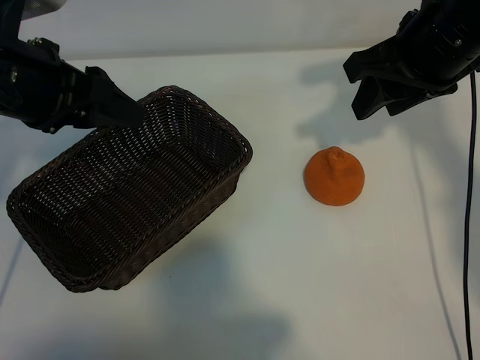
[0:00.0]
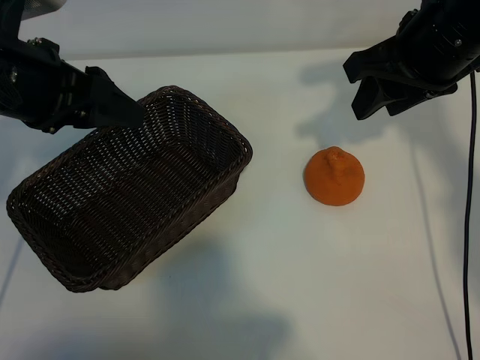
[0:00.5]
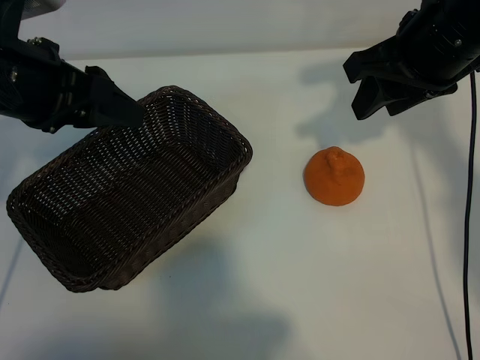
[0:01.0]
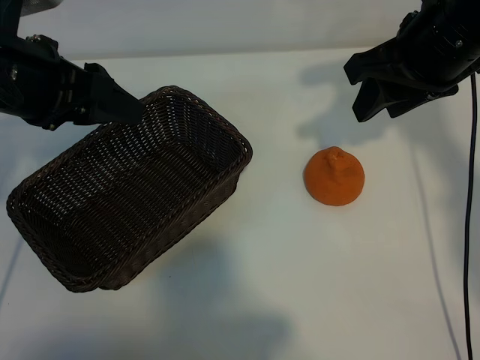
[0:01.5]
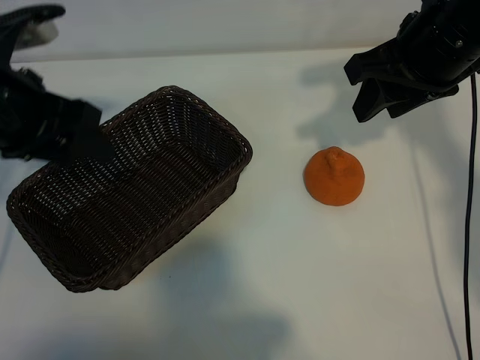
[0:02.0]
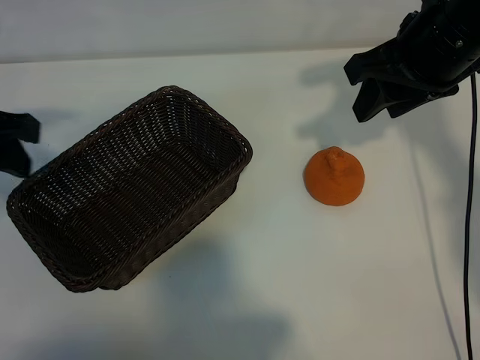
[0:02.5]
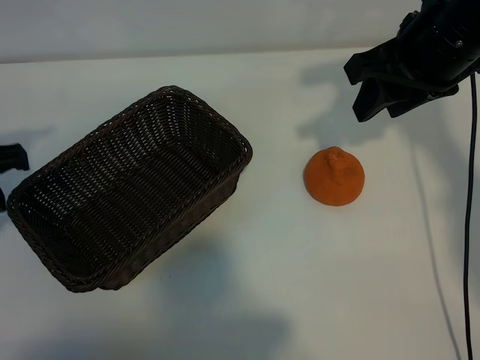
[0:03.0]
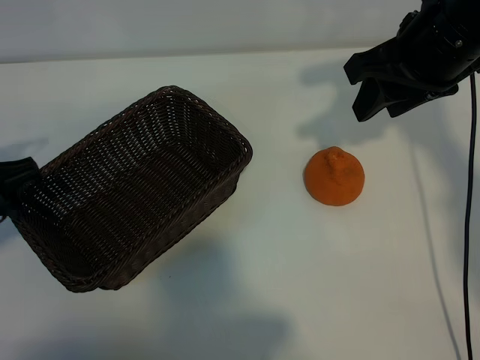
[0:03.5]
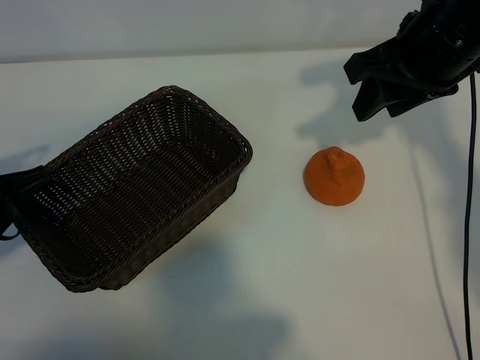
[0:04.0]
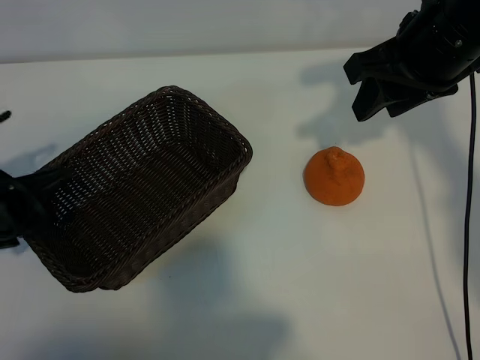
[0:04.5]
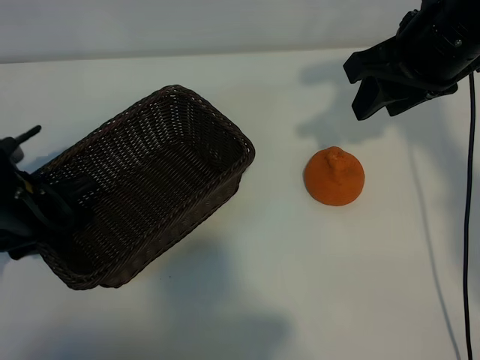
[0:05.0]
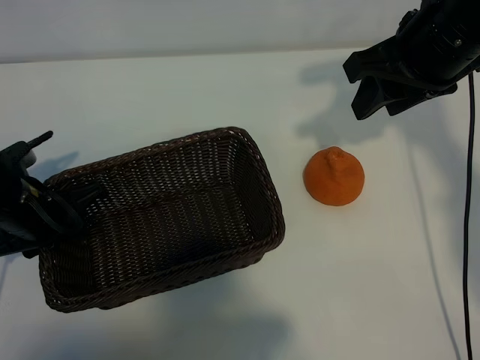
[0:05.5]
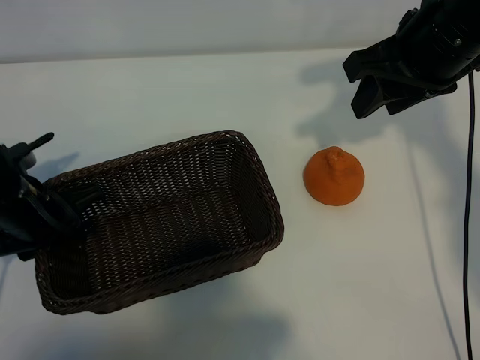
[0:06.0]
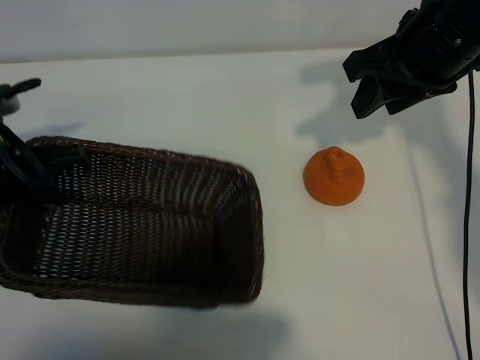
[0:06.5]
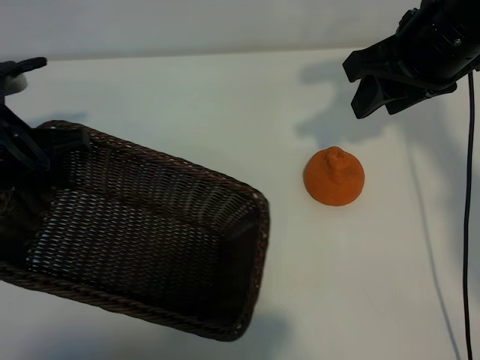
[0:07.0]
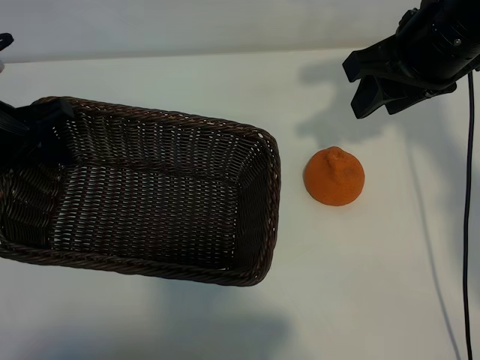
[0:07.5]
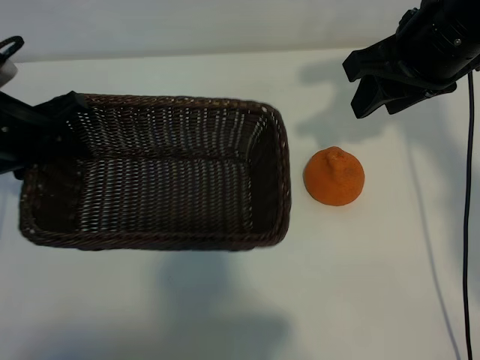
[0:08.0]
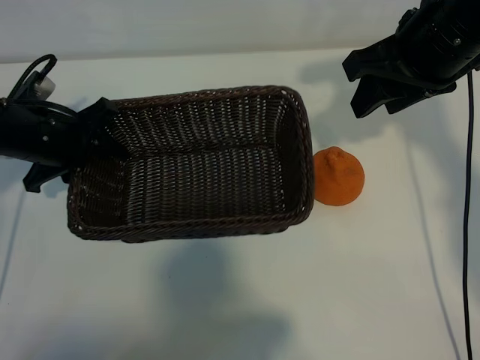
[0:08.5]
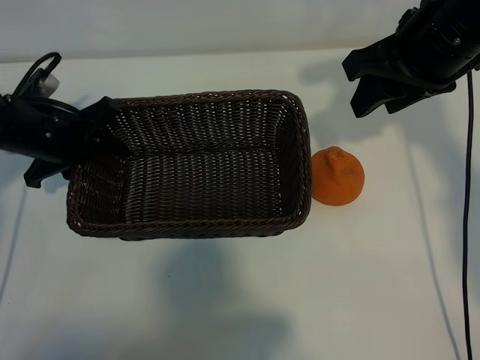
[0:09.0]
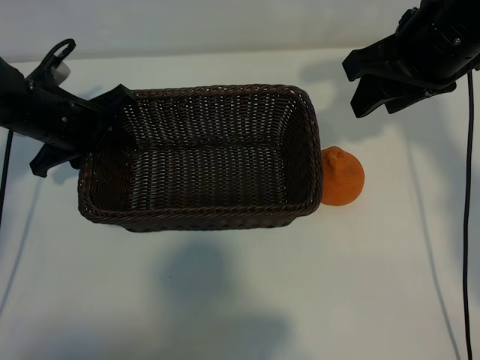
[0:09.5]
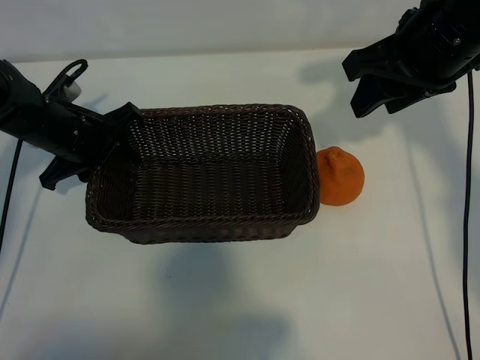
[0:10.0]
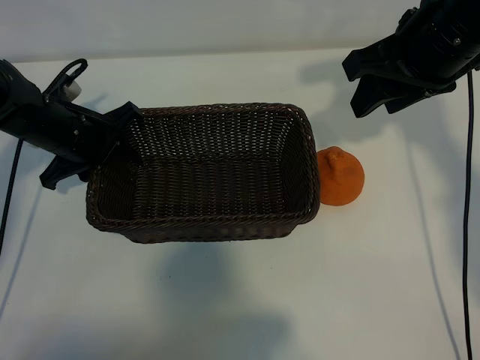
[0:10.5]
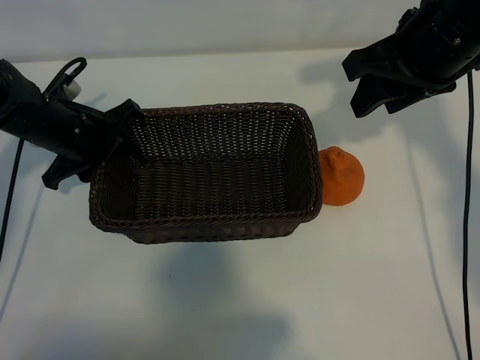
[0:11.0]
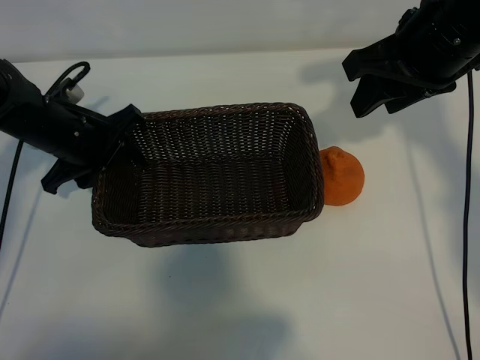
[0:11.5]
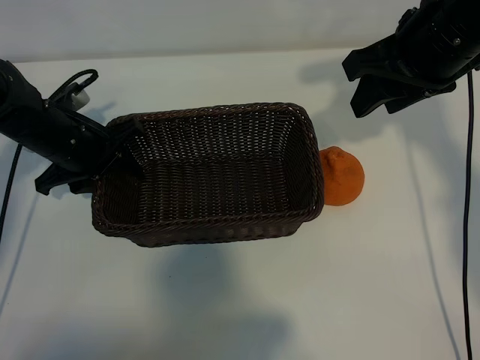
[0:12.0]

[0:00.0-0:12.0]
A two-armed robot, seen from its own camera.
Task of the whole recording: pick up the orange and put it into the basket.
Step, 0:01.0 to 0:05.5: Grasp the basket with left gripper.
Step, 0:06.0 to 0:11.5: Place the basket in the center of view with left gripper.

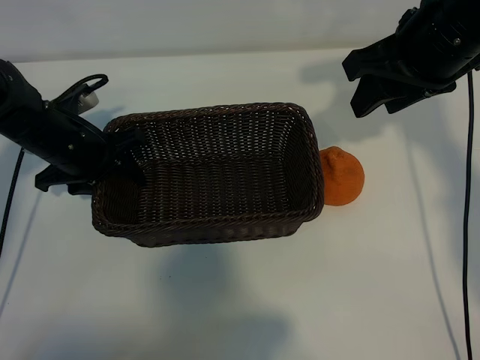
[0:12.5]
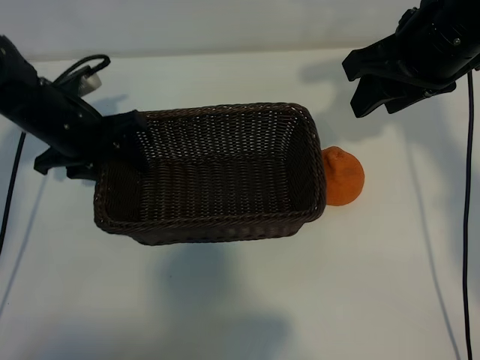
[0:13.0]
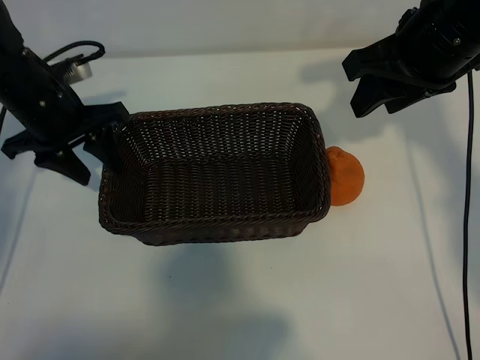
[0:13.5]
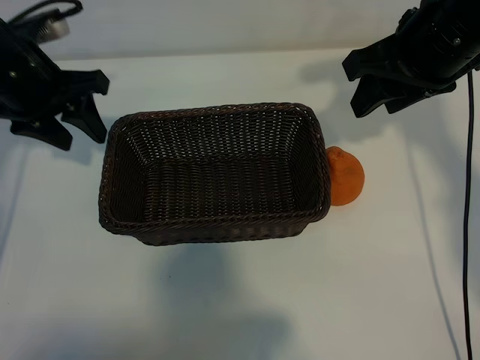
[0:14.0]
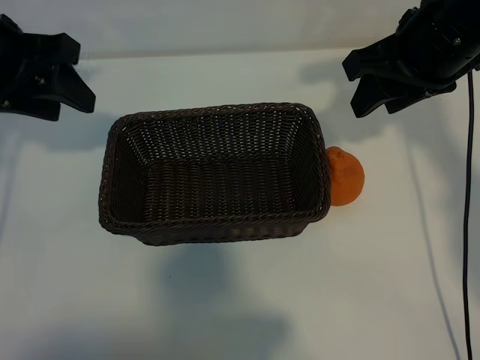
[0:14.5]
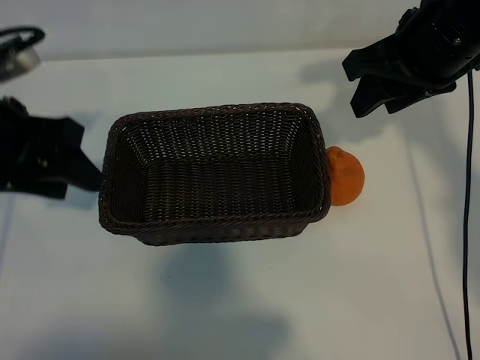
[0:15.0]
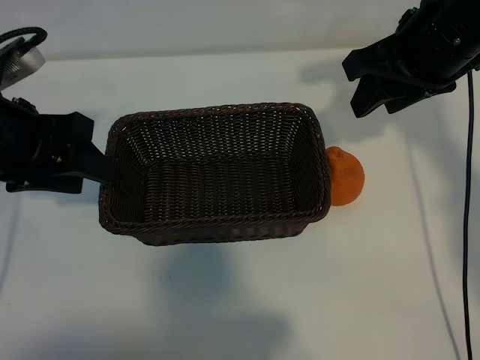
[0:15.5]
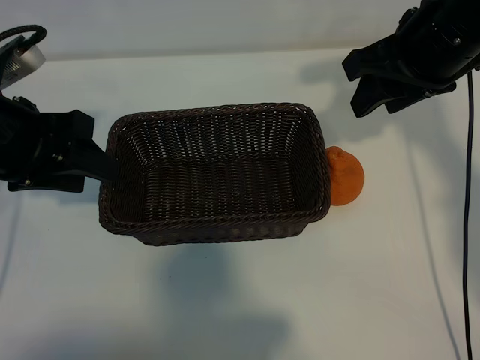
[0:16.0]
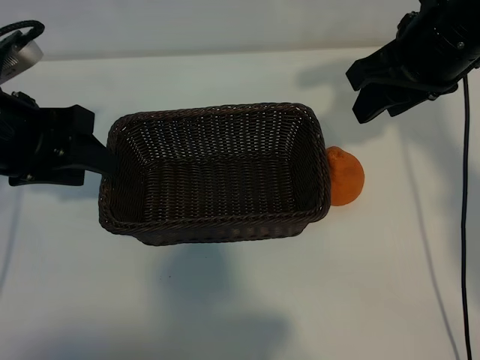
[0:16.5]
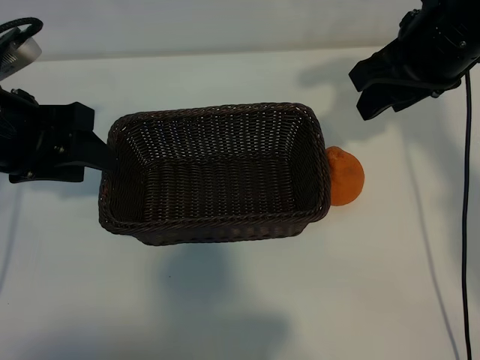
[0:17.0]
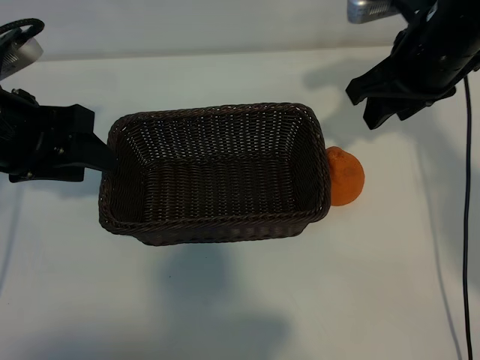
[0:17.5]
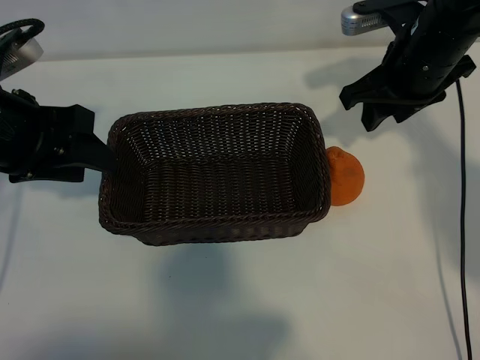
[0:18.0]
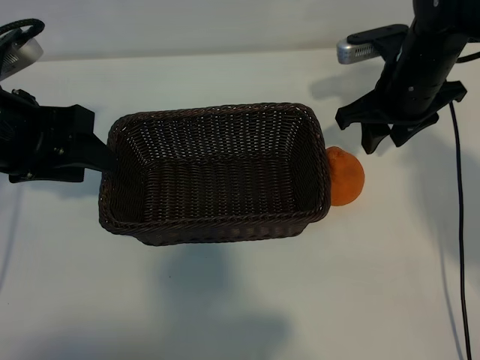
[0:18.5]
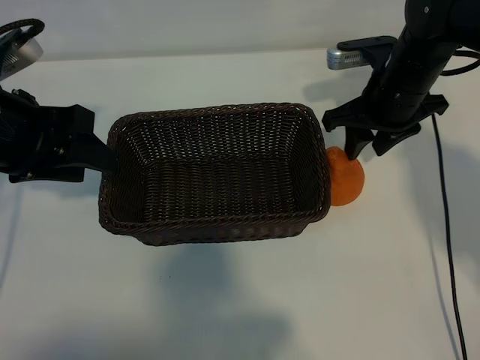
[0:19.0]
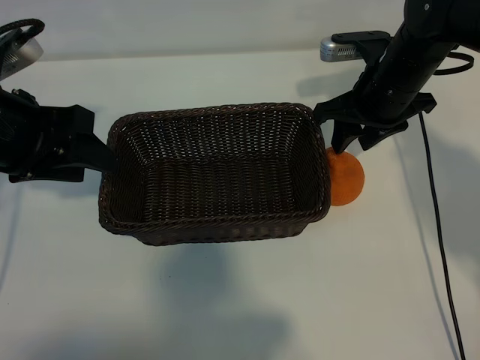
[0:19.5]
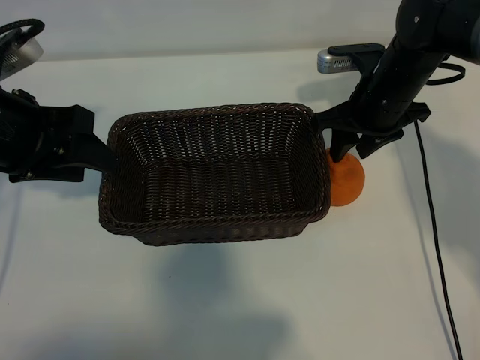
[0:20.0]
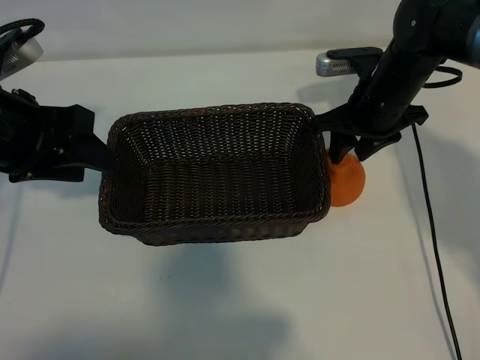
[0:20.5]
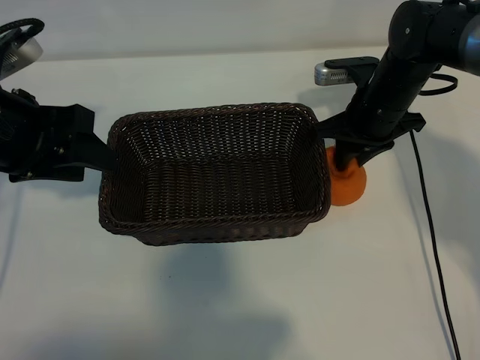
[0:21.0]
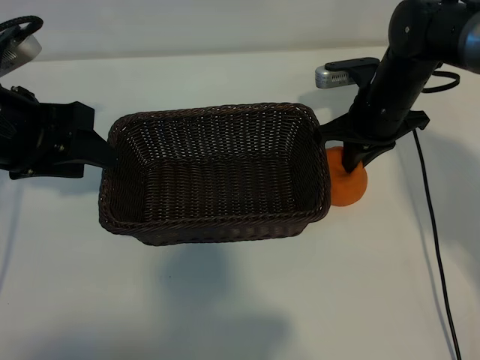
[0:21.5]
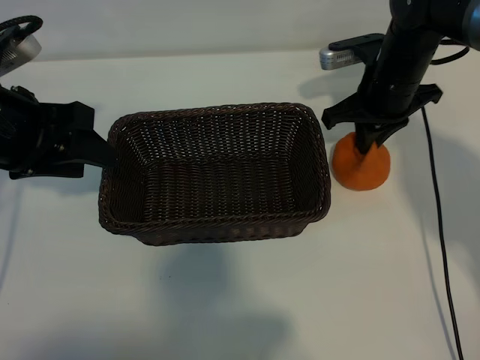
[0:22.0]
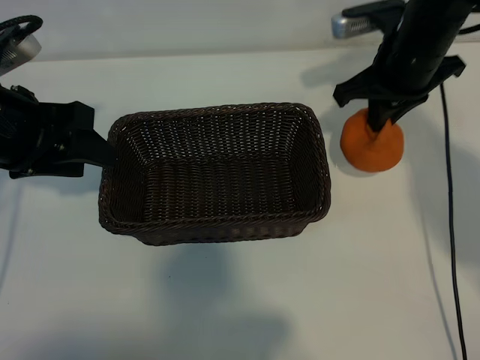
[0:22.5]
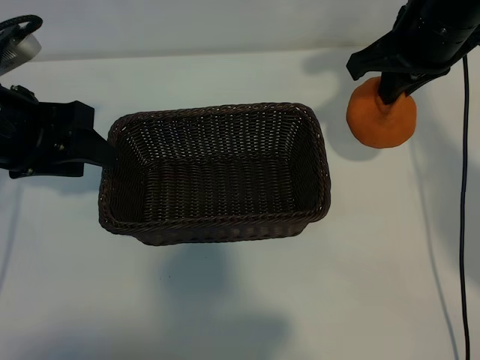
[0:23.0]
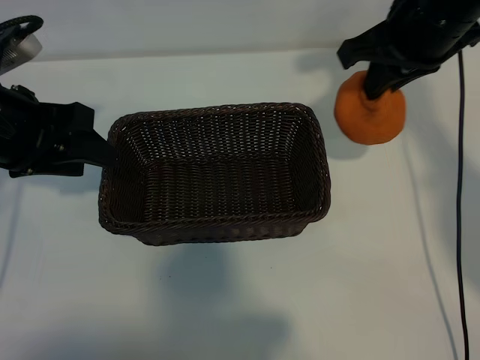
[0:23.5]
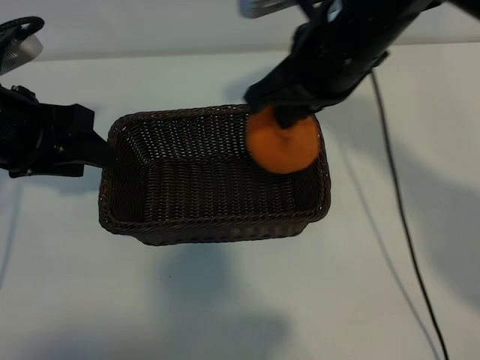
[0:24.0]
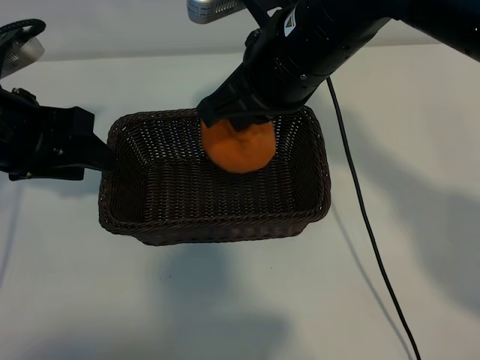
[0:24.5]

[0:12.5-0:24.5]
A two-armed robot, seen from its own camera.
Task of the whole recording: pick up the orange and put it into the basket.
Step, 0:12.5 to 0:21.0: Grasp the orange with right gripper.

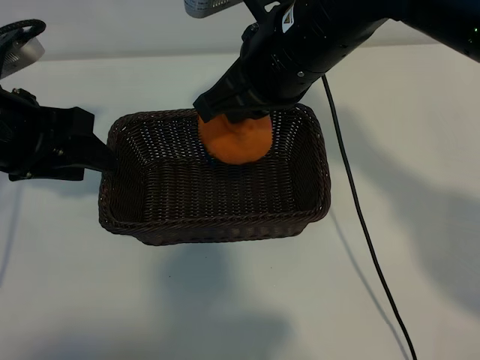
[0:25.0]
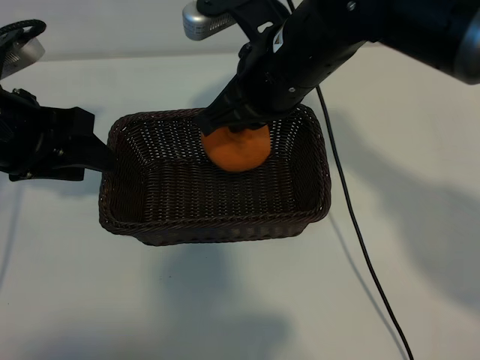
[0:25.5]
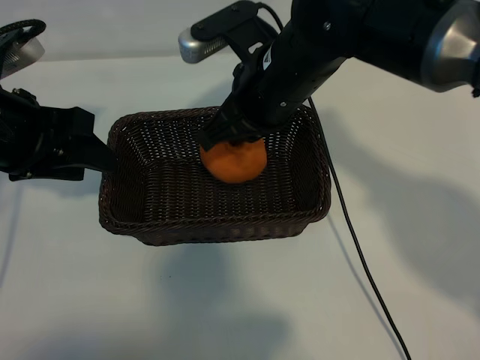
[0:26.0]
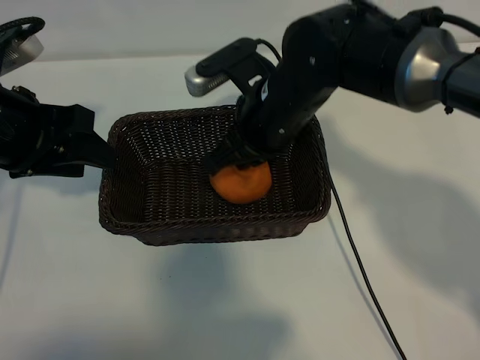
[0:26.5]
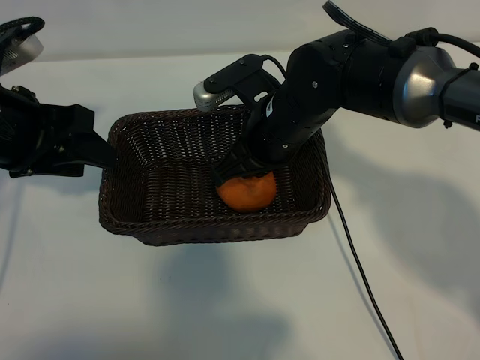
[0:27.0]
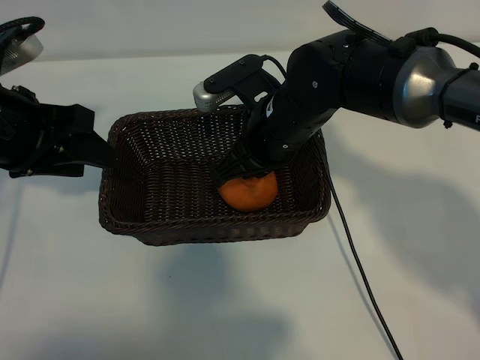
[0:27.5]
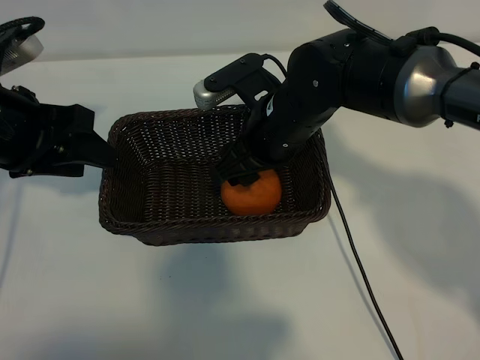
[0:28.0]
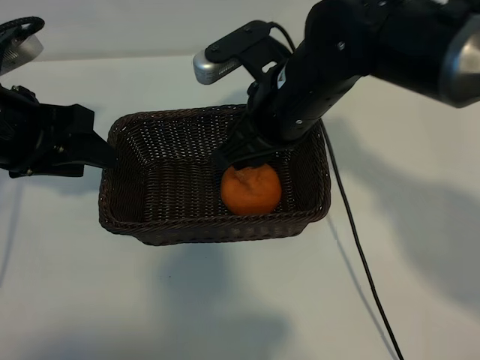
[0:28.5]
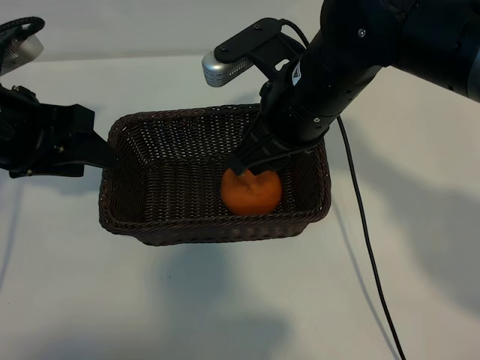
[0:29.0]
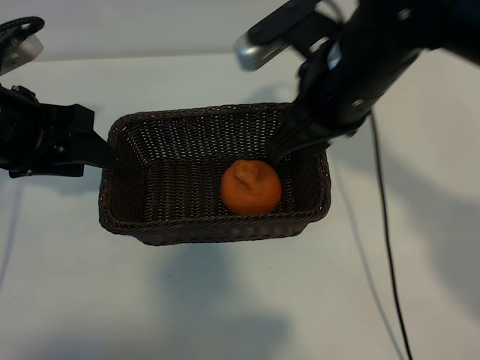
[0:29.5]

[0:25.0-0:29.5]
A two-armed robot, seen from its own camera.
Task of the whole recording: pick up the orange and put it into the basket.
Step, 0:25.0 to 0:27.5: Place the orange in the basket with right gripper.
